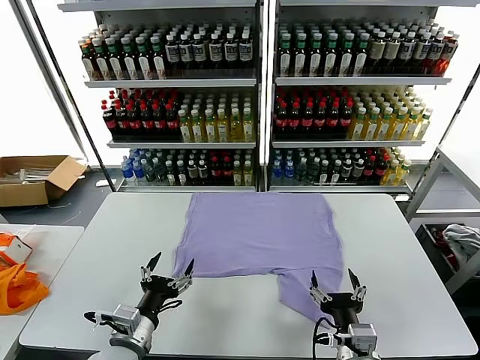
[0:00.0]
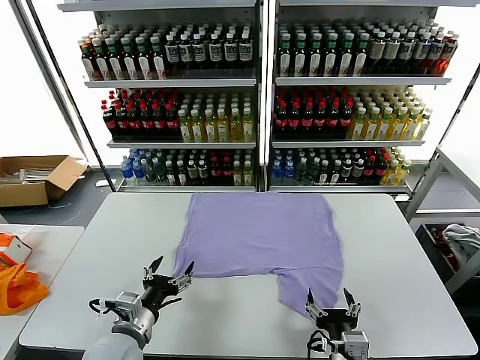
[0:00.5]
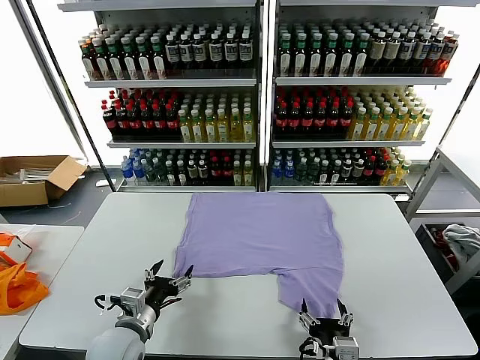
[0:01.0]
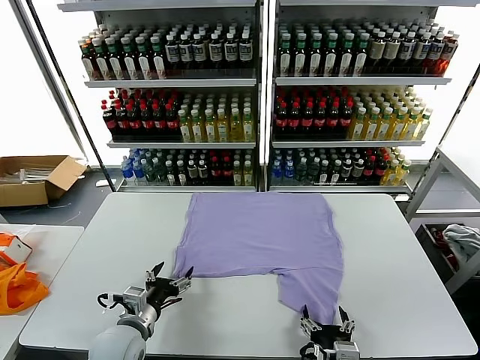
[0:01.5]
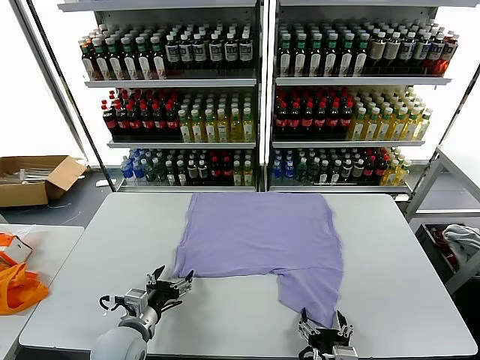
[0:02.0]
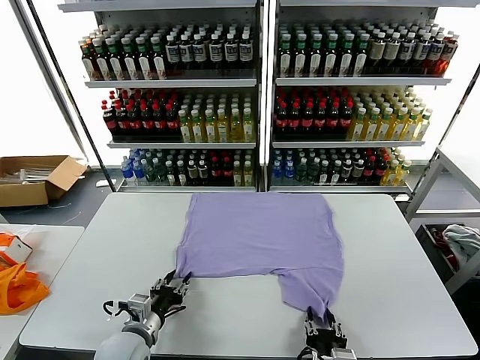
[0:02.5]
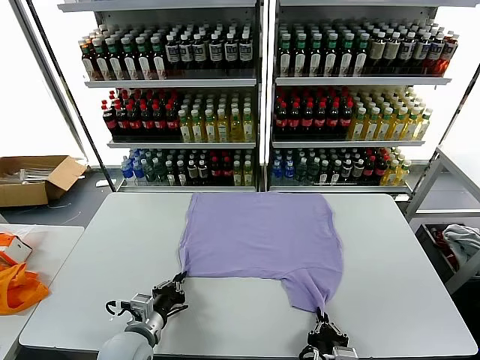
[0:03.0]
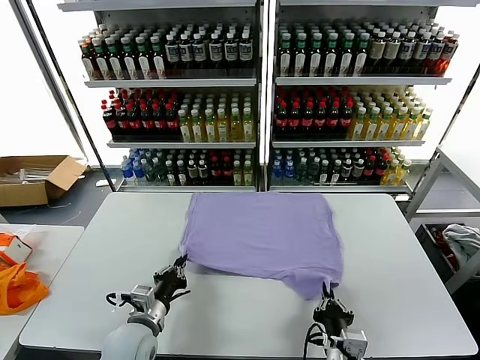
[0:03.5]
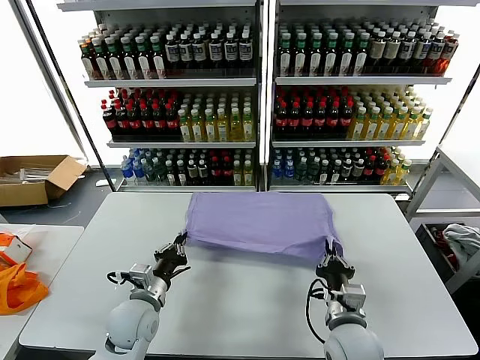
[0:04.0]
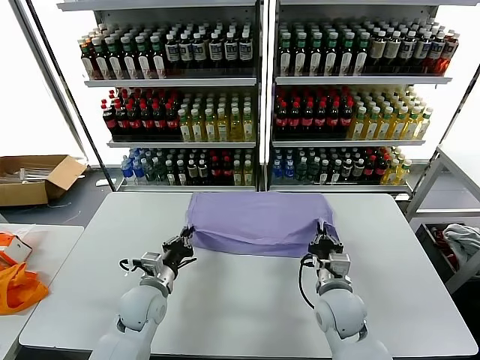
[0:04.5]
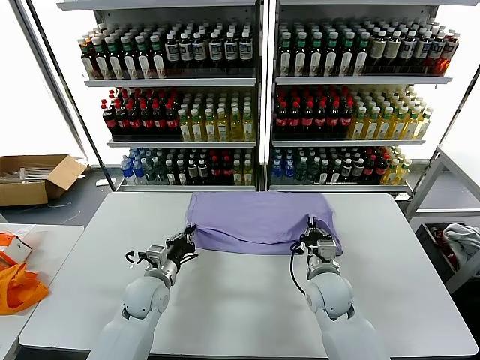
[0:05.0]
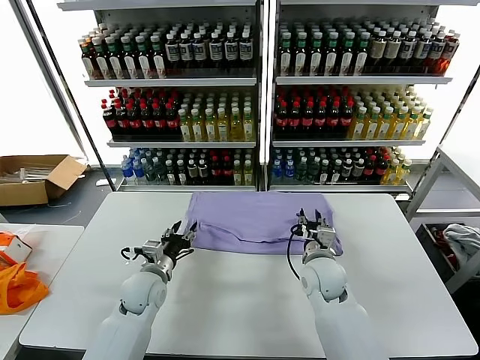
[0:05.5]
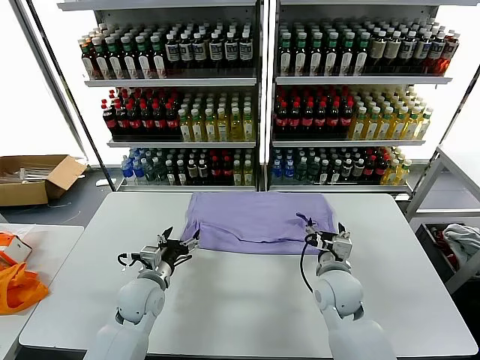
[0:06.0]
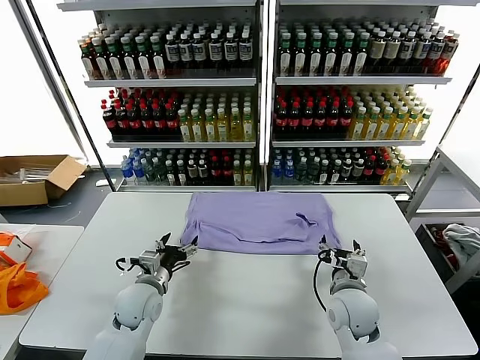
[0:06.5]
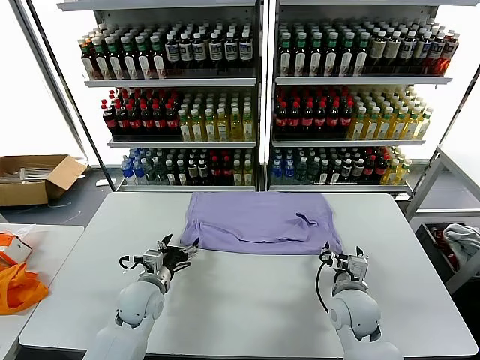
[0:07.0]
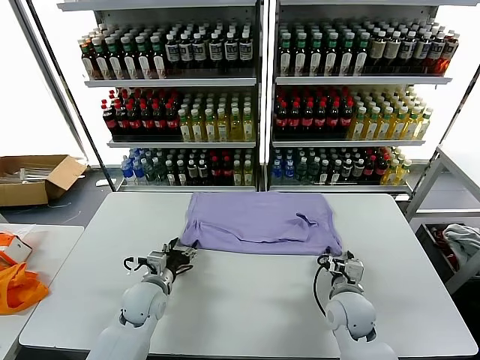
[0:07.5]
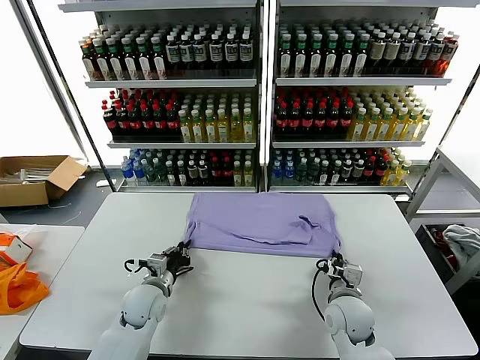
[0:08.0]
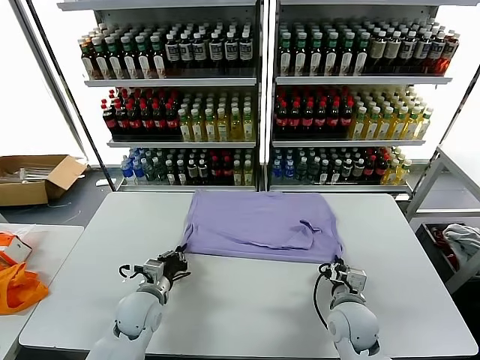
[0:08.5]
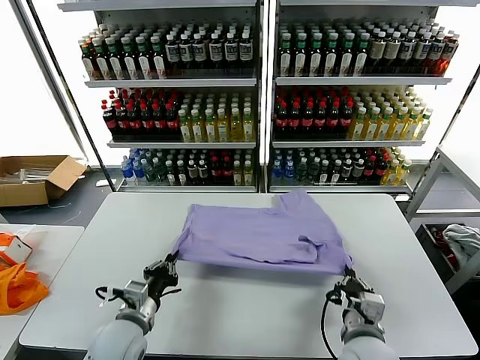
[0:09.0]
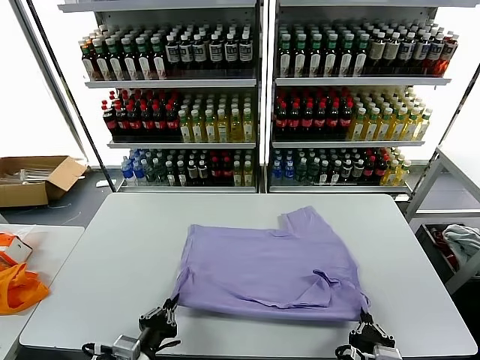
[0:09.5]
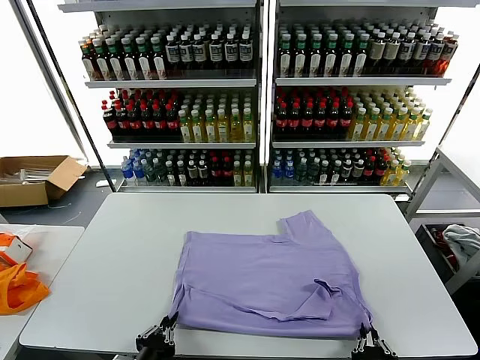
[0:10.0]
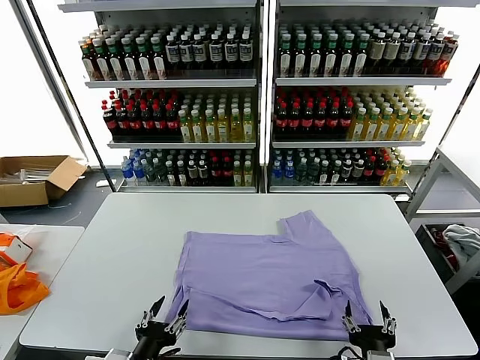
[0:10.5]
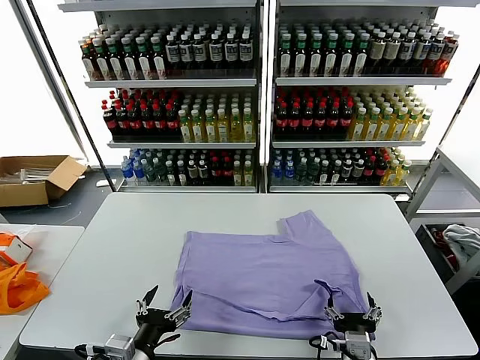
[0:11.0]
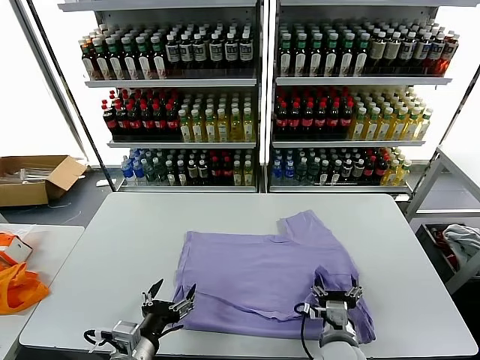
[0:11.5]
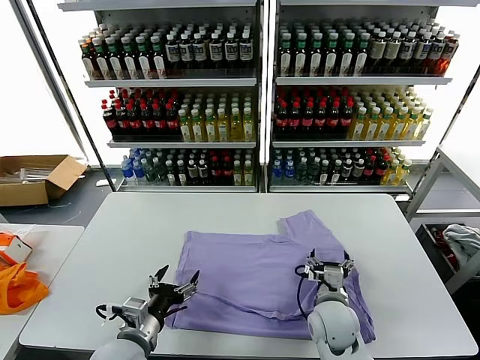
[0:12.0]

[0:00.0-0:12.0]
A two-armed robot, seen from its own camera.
Task of the whole recording: fold and organize the clothes.
Step, 0:00.0 to 0:03.0: use both grippers simultaneously to clamp the lower edge of the clothing fabric.
Step, 0:03.5 to 0:05.0: use both grippers to drag the lower edge of the fabric forward and fold it over the upper edge.
Step, 0:05.5 to 0:10.0: Drag the clothes downward with both gripper.
0:02.0 to 0:04.0: The left gripper goes about 5 cm forward, and closes. The right gripper moves forward, some 15 cm, and closes up.
0:04.0 to 0:06.0: The right gripper travels forward by approximately 5 cm, and opens up; the left gripper opens its fingers.
0:06.0 to 0:08.0: The right gripper heads downward, covering some 5 cm, and closes its fingers, while the left gripper closes its fingers.
0:08.0 to 0:10.0: The grippers both shift backward by approximately 25 cm. The right gripper opens up.
0:10.0 to 0:12.0: The left gripper moves forward, approximately 10 cm, and opens up, while the right gripper moves forward, some 25 cm, and opens.

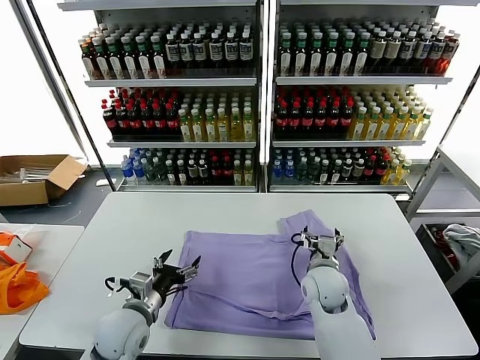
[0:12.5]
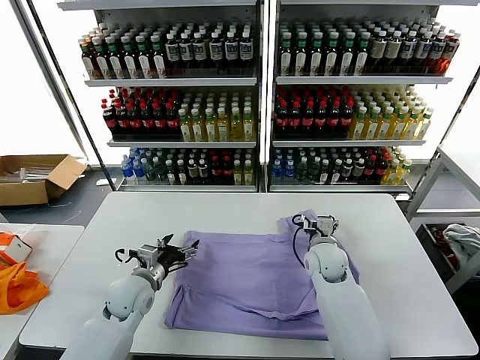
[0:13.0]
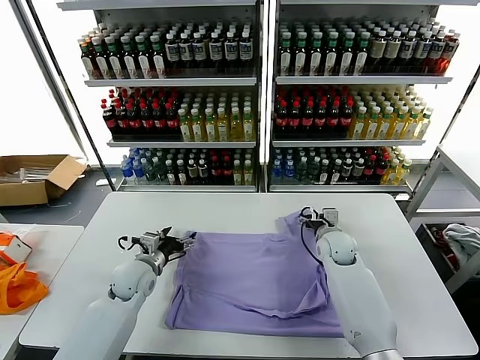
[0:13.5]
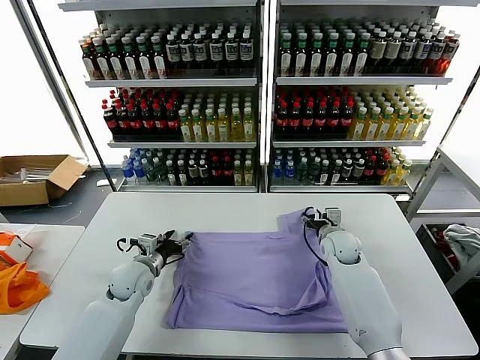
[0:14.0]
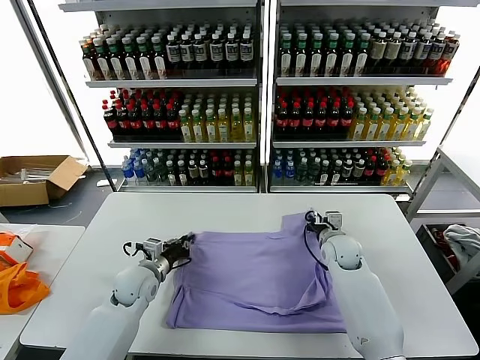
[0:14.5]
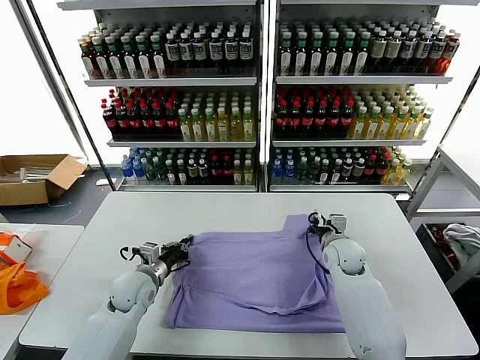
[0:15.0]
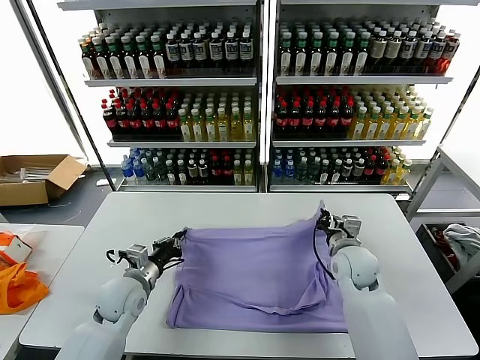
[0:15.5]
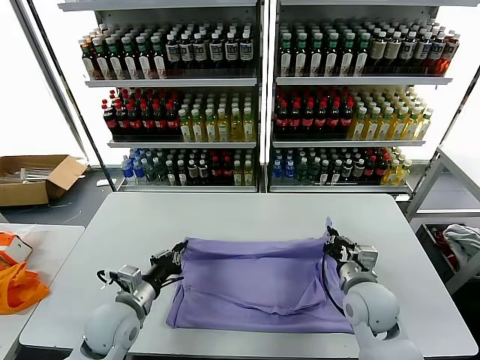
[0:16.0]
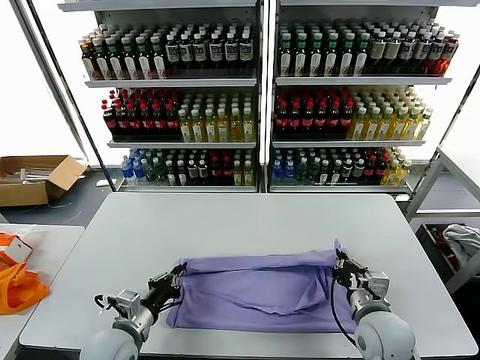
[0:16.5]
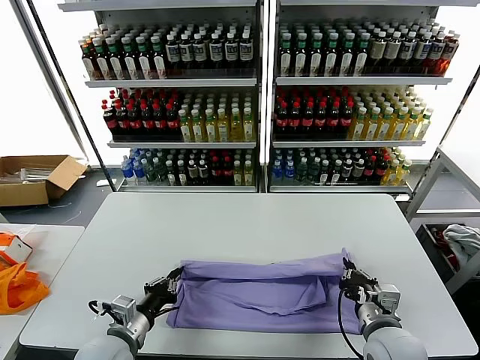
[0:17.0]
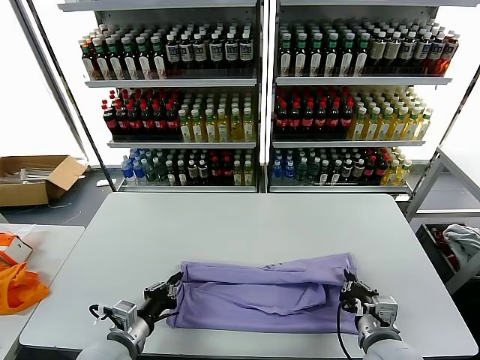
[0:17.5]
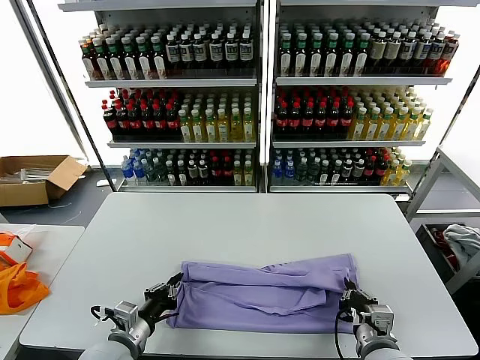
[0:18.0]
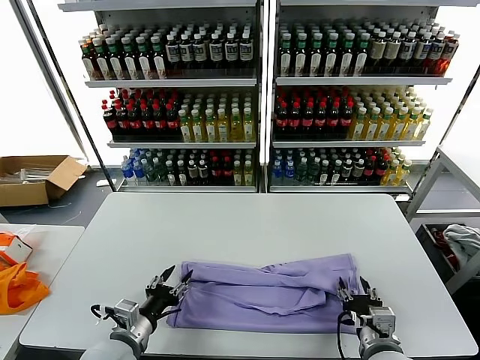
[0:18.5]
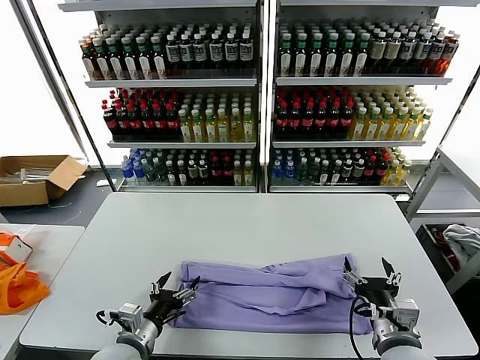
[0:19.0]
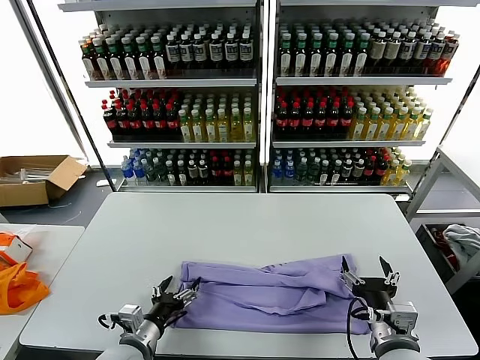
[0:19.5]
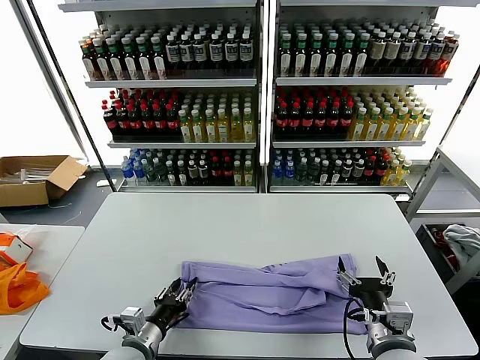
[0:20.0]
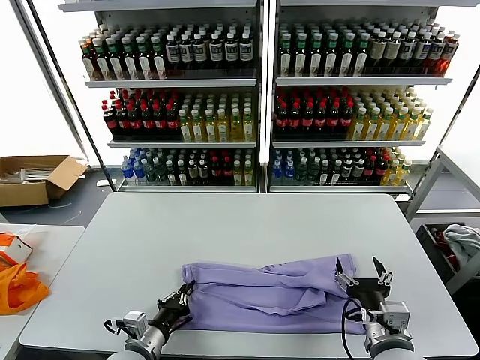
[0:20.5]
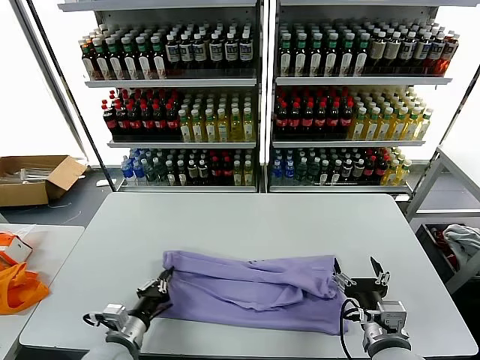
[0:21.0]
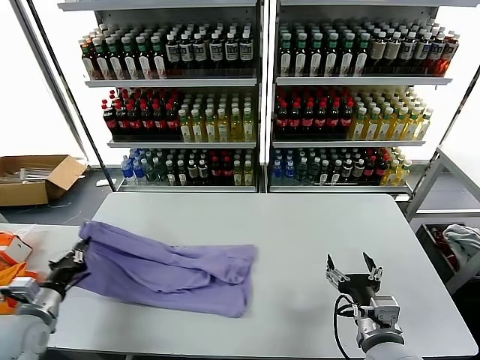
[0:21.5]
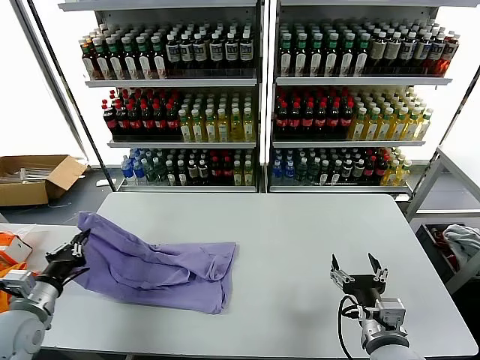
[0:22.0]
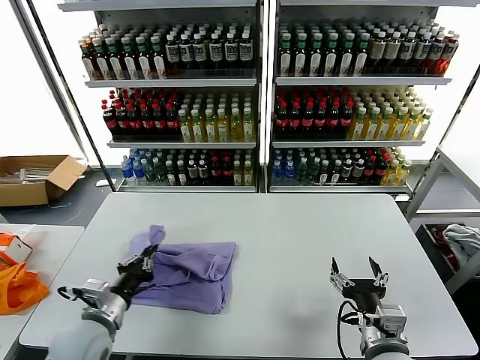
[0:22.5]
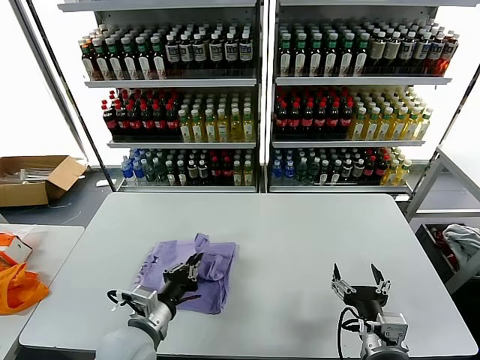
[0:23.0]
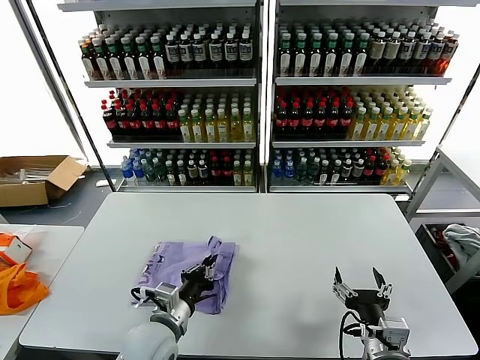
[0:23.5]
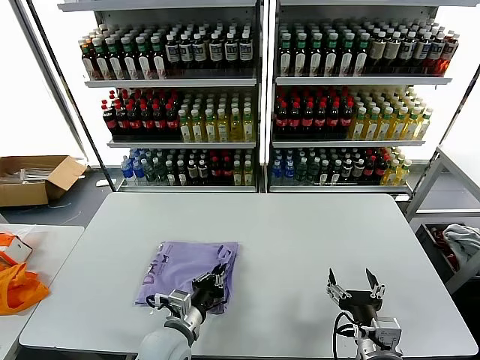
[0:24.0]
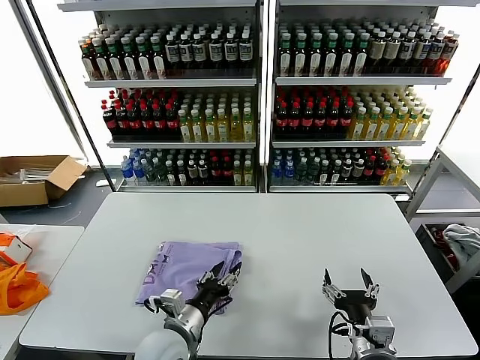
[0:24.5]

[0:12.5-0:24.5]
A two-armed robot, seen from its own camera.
Task of the whole recording: fold and organize the clothes.
Step, 0:12.5 to 0:14.5: use both grippers simultaneously to clamp the upper edge of the clothing fabric.
Step, 0:15.0 to 0:18.0: use both grippers to drag the upper edge of the fabric backward and fold it over the lower edge.
Step, 0:18.5 to 0:20.0: use the left gripper to clamp the left edge of the fabric.
Step, 0:20.5 to 0:24.5: use the left gripper to drag the left edge of the fabric to the left and folds it over the right edge.
0:12.5 to 0:14.5: The right gripper is displaced forward and to the right by roughly 10 cm, and closes its fingers. The left gripper is displaced forward by approximately 10 cm, and closes its fingers.
0:14.5 to 0:16.5: Both grippers move backward, some 20 cm.
0:16.5 to 0:18.5: The right gripper moves backward, approximately 5 cm, and opens up; the left gripper opens.
0:18.5 to 0:20.5: The left gripper closes its fingers.
0:20.5 to 0:22.5: The left gripper heads upward, covering some 10 cm, and moves roughly 20 cm to the left and comes back.
0:22.5 to 0:24.5: The left gripper heads to the right, covering approximately 15 cm, and opens.

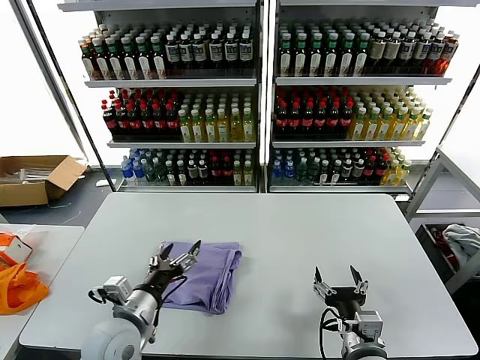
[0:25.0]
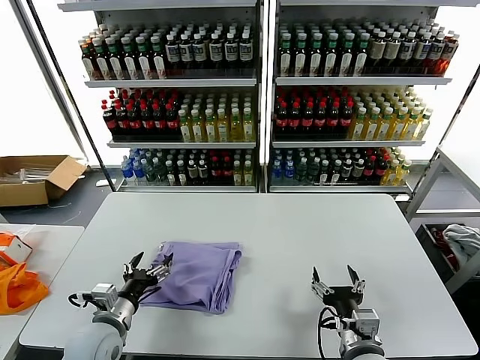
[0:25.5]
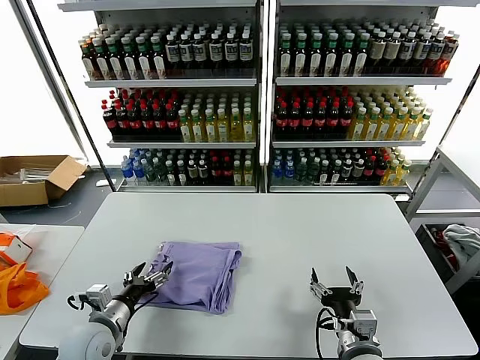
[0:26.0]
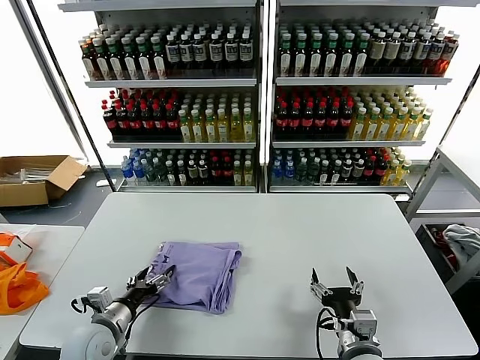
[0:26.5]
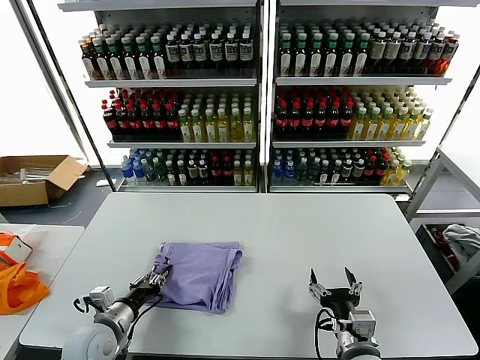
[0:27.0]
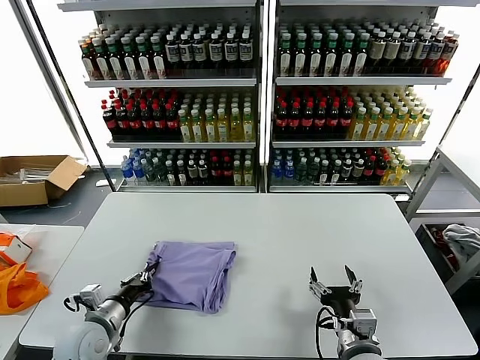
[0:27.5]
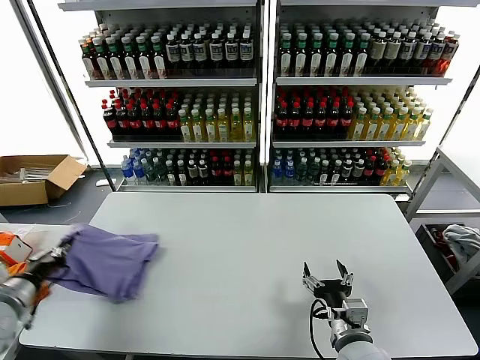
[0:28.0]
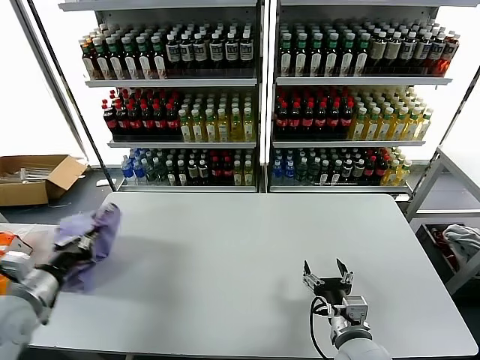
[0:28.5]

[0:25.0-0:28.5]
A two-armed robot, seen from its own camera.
Task of the whole recording: fold and organize the clothes.
0:25.0 to 0:27.0: The left gripper travels to the left and downward by about 10 cm, and closes up.
0:27.0 to 0:28.5: The left gripper is displaced upward and to the left by approximately 20 cm, and closes up.
